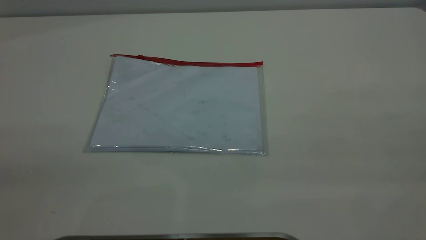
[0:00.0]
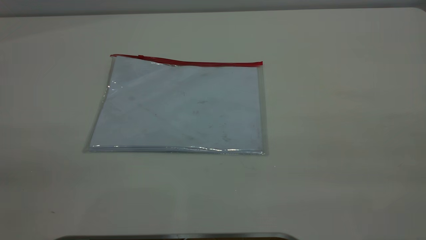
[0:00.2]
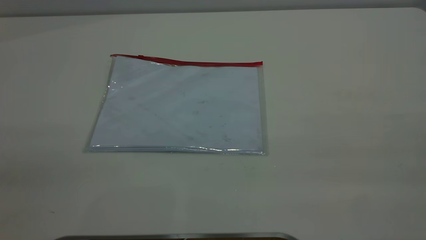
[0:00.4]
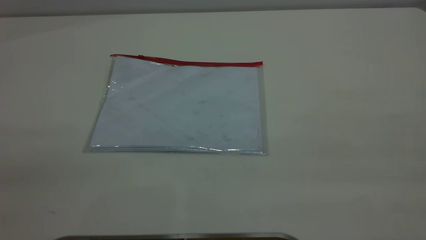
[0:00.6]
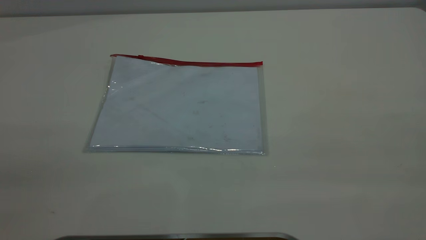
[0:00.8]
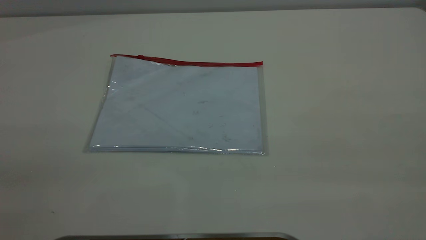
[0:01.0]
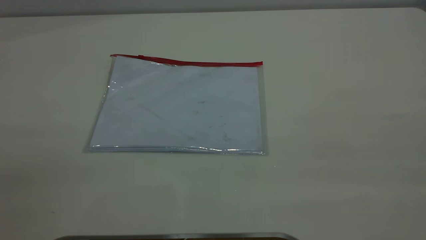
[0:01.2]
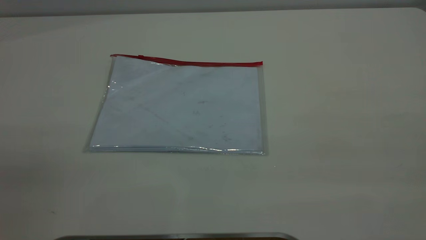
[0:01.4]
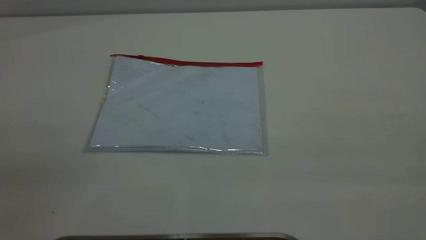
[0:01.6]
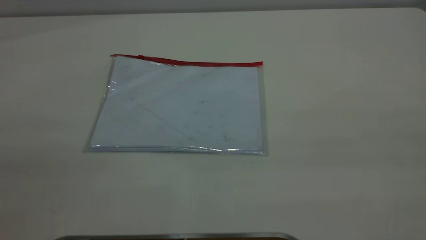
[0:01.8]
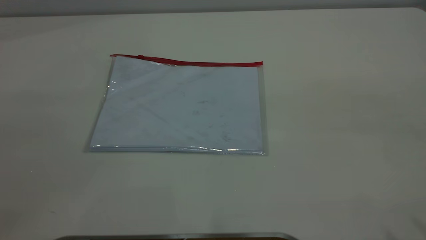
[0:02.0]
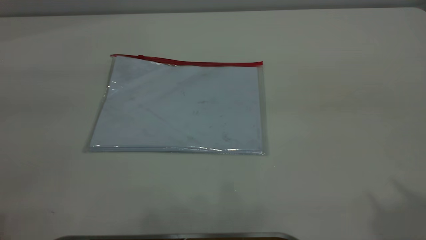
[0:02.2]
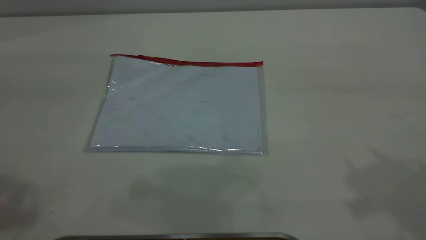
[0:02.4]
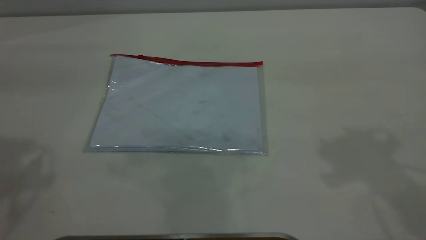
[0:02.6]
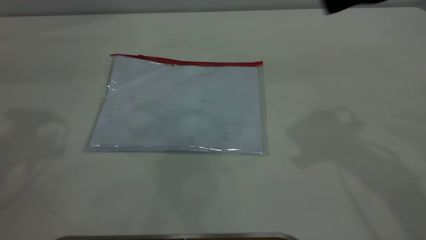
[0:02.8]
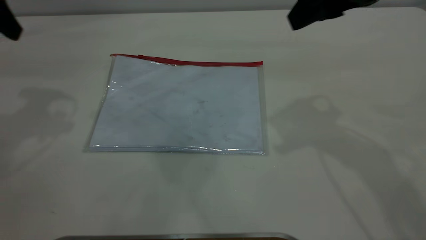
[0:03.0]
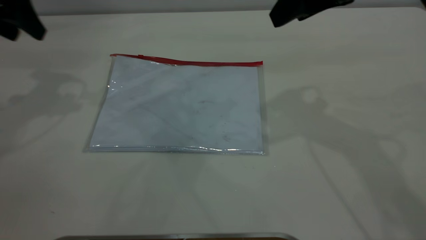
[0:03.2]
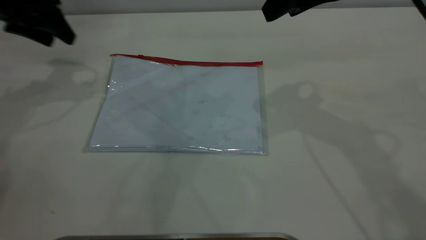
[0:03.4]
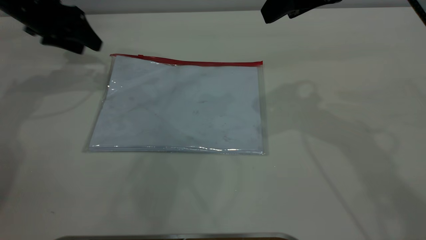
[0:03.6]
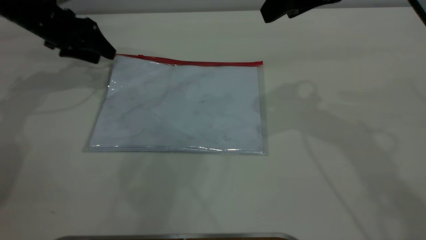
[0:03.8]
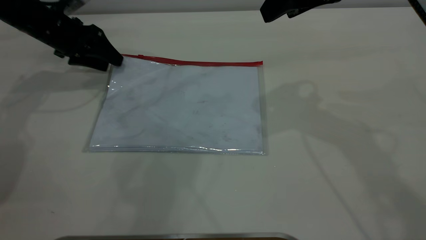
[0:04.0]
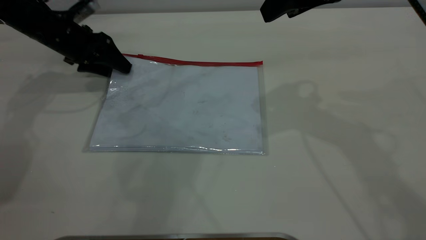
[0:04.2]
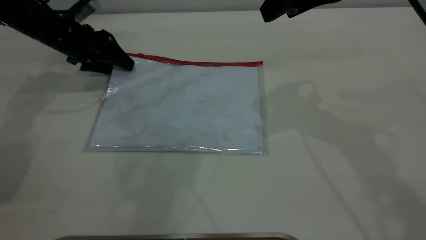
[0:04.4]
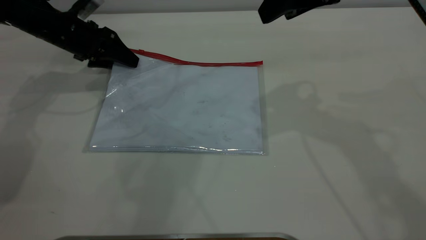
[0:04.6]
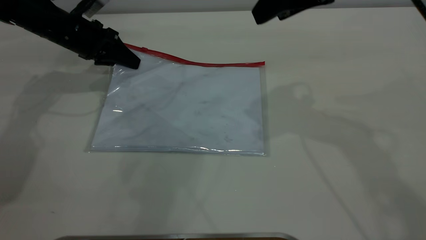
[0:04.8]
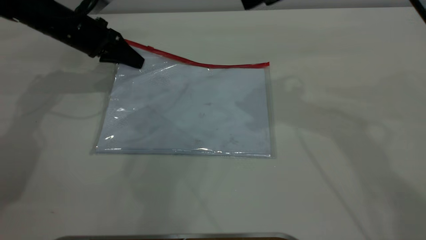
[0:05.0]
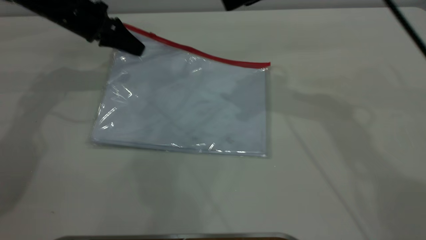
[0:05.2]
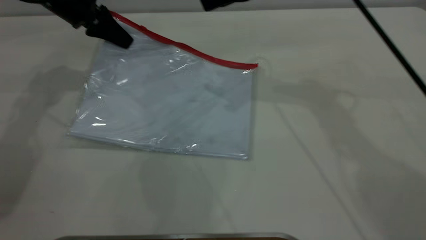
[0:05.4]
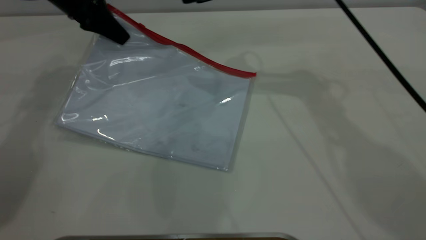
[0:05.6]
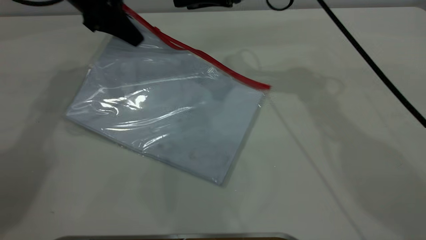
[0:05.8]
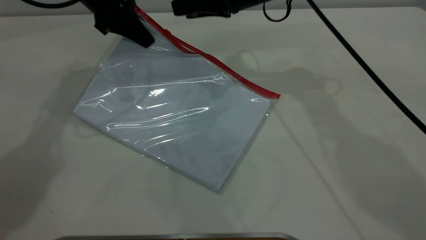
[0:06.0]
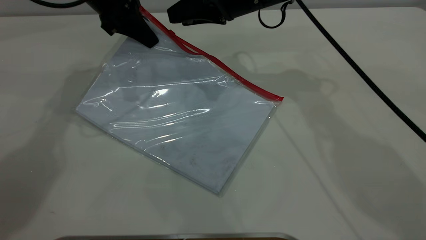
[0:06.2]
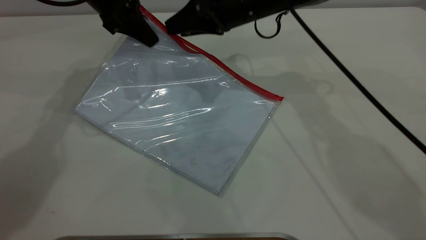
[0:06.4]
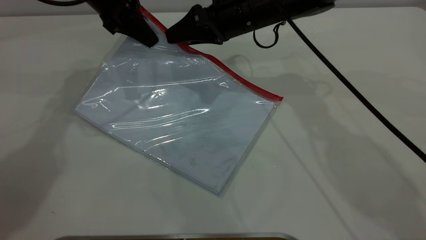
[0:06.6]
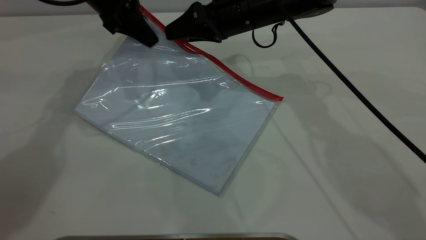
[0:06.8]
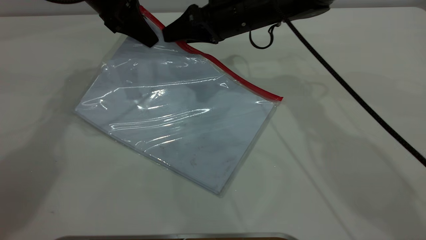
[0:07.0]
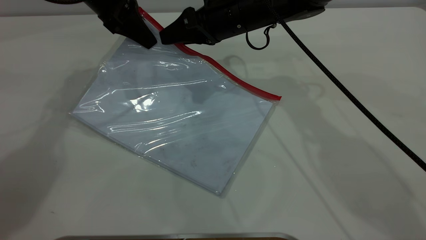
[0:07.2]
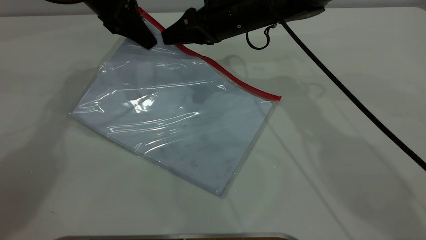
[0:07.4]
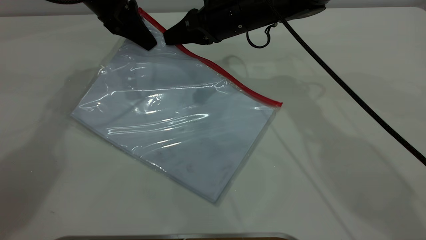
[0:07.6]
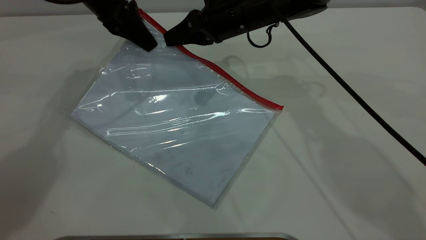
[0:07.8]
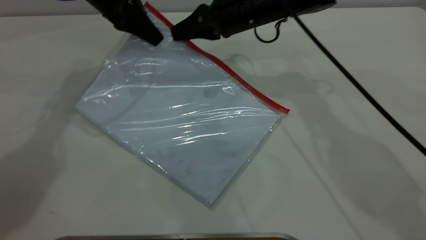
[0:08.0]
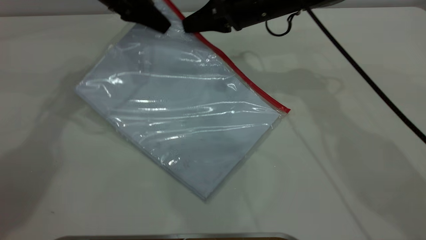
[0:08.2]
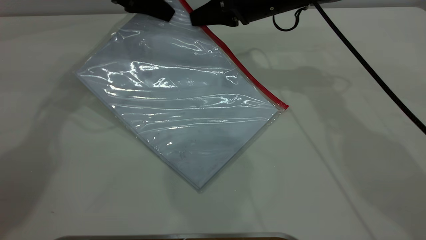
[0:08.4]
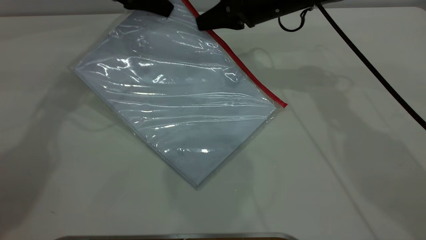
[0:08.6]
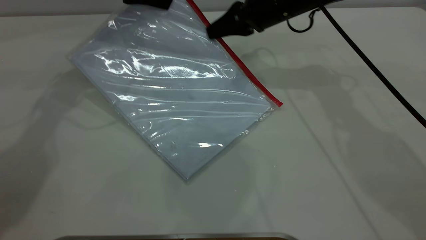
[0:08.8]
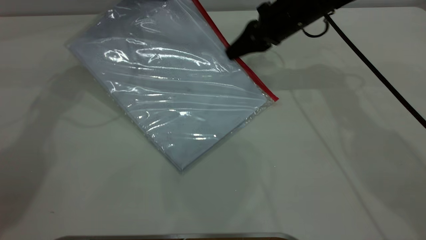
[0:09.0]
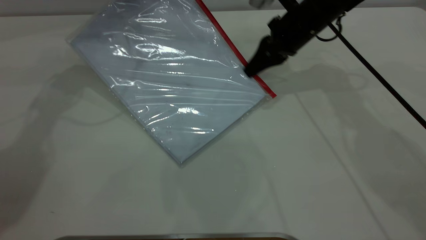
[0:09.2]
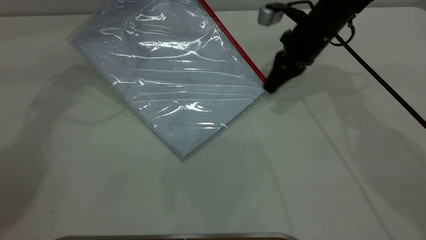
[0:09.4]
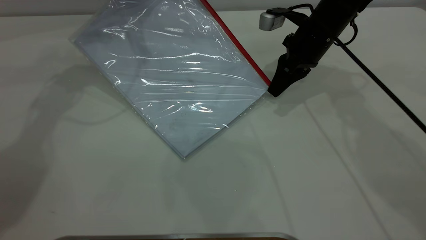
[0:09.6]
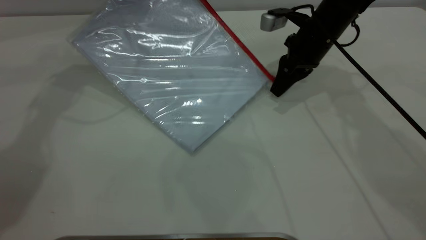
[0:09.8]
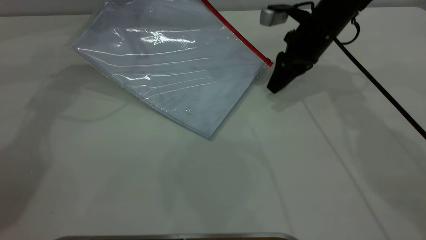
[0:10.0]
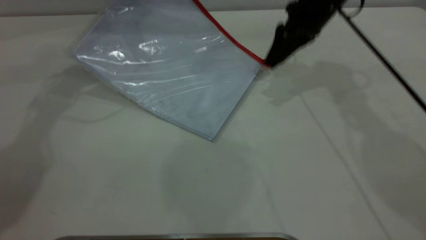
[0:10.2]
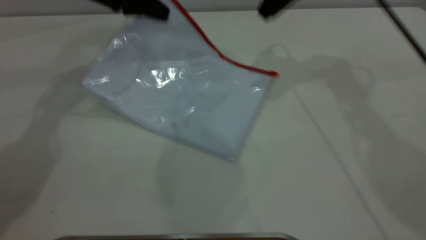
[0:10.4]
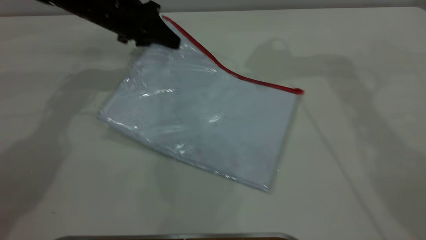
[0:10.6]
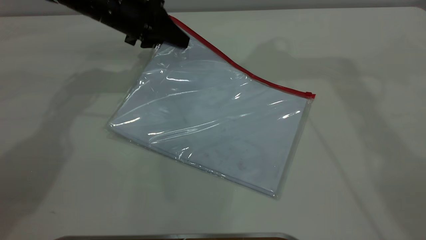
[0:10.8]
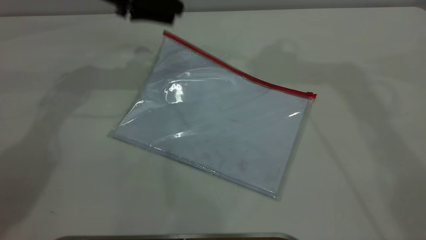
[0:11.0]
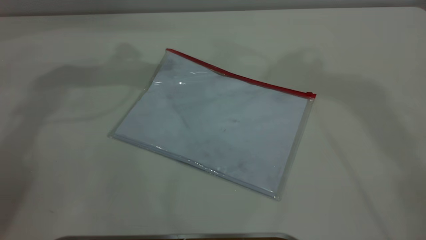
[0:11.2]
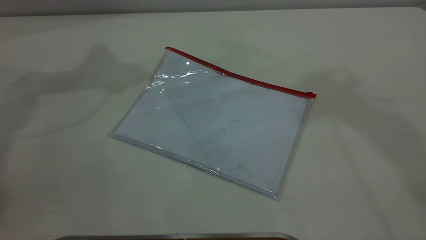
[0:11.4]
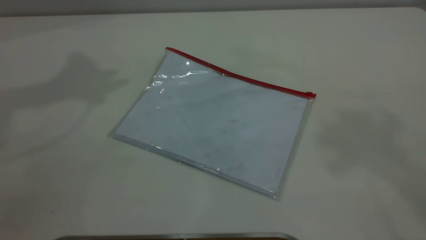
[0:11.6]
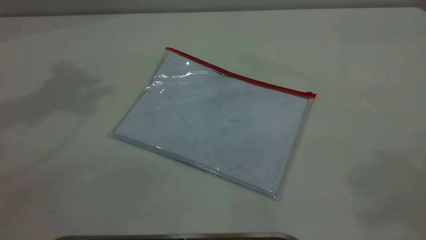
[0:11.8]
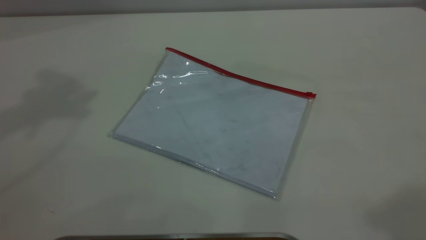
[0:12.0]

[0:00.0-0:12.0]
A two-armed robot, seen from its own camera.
Step, 0:00.0 to 0:05.2: Pick up the transparent plastic bag with the left gripper.
Step, 0:05.4 to 0:09.8: Pulling up the zipper on the transparent plastic bag with the right gripper to close it.
Step, 0:10.0 to 0:11.0: Place the transparent plastic bag.
0:00.0 to 0:01.6: Neither gripper changes place.
0:01.6 to 0:03.0: The right gripper goes roughly 35 cm forward.
0:03.0 to 0:04.4: The left gripper shifts some 20 cm downward and forward.
0:04.4 to 0:06.0: The left gripper shifts approximately 15 cm upward and to the right, and closes its fingers, while the right gripper travels forward, downward and to the left by about 15 cm.
0:06.0 to 0:07.6: The right gripper closes its fingers.
0:07.6 to 0:09.0: The right gripper heads to the right, covering about 10 cm.
0:09.0 to 0:10.4: The left gripper moves downward, about 5 cm. The right gripper shifts roughly 15 cm upward, and opens up.
0:10.4 to 0:12.0: The right gripper is displaced backward and upward by roughly 40 cm, while the left gripper shifts some 35 cm upward, and opens its fingers.

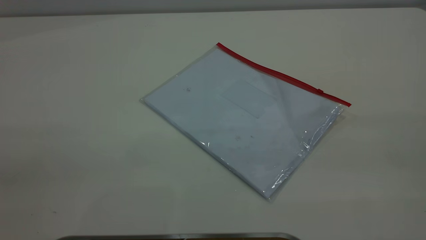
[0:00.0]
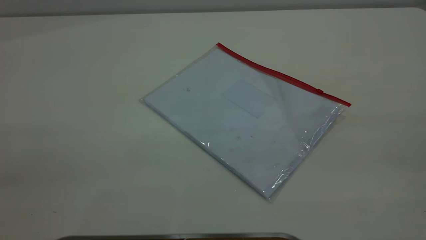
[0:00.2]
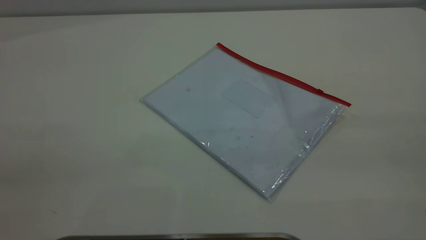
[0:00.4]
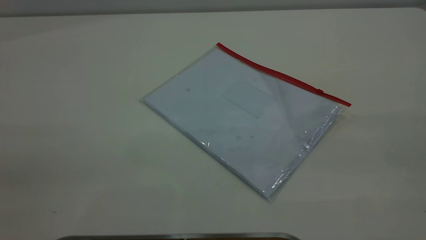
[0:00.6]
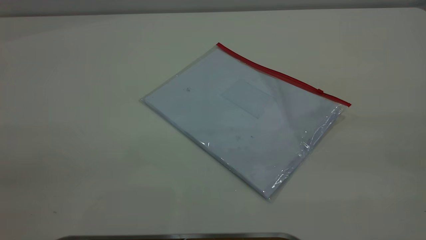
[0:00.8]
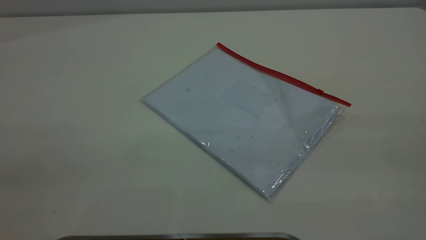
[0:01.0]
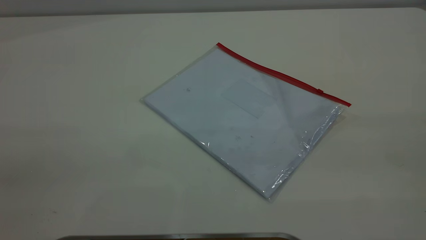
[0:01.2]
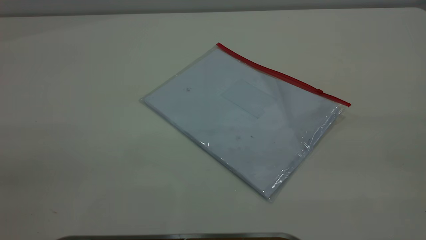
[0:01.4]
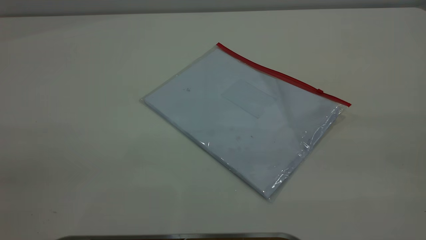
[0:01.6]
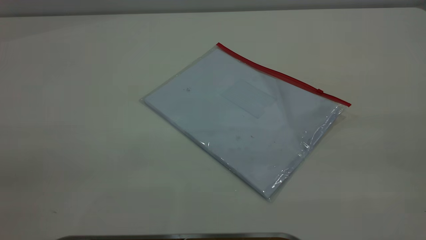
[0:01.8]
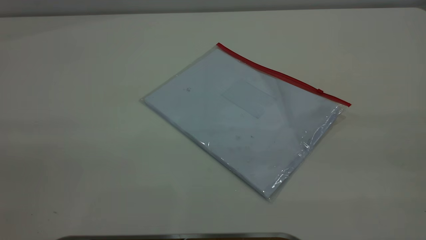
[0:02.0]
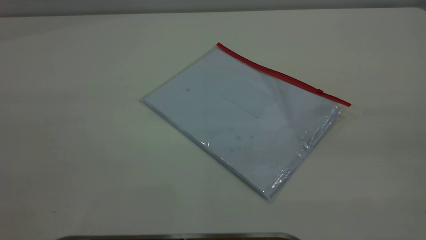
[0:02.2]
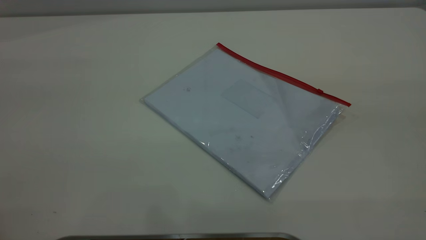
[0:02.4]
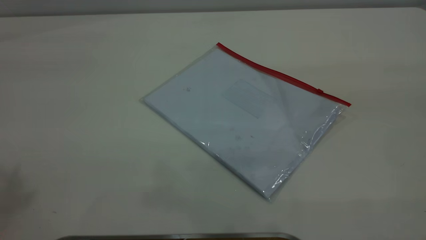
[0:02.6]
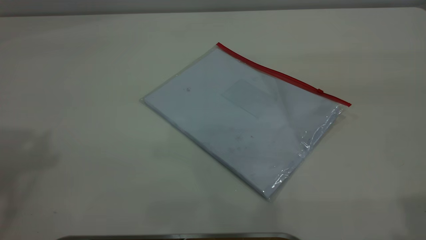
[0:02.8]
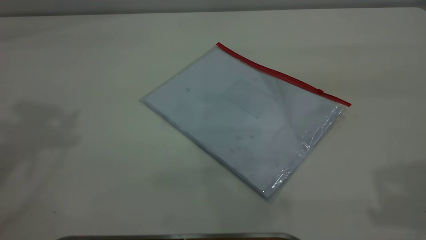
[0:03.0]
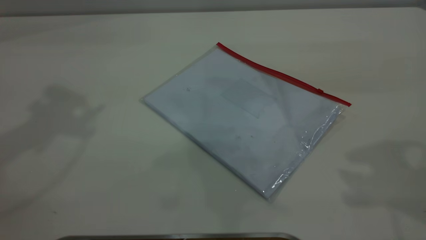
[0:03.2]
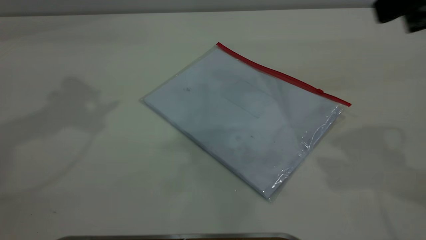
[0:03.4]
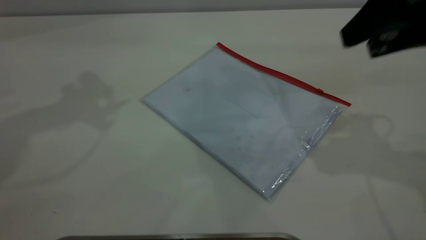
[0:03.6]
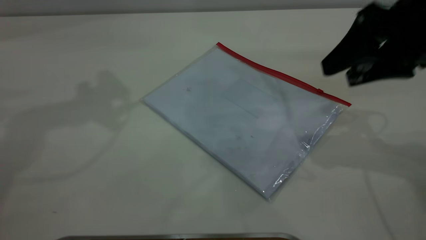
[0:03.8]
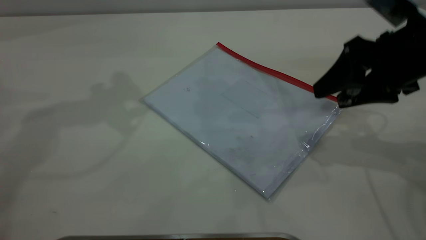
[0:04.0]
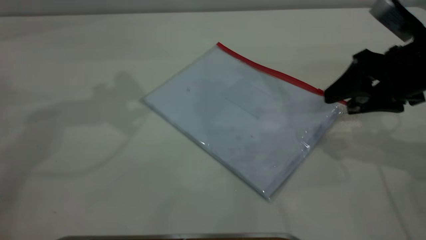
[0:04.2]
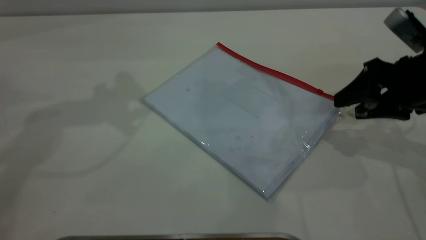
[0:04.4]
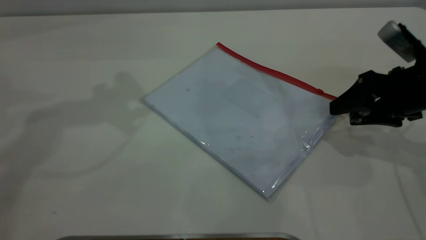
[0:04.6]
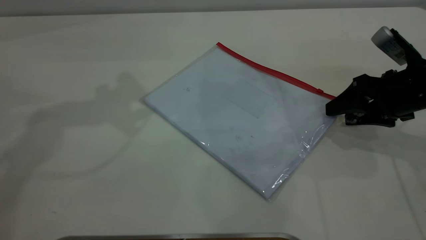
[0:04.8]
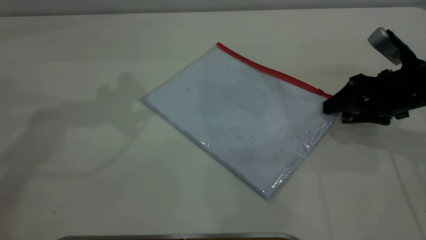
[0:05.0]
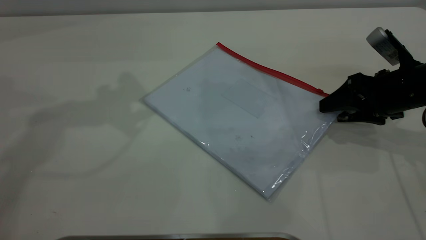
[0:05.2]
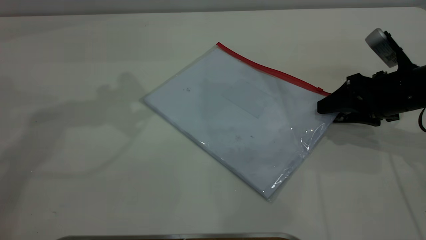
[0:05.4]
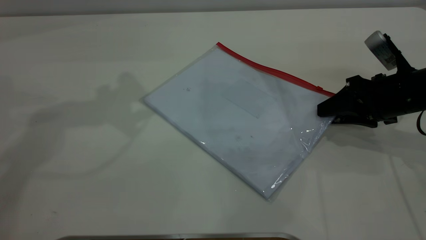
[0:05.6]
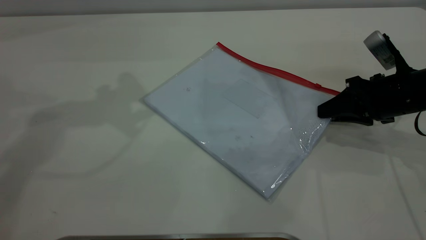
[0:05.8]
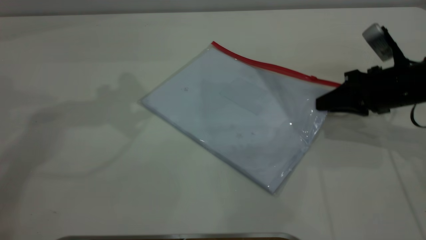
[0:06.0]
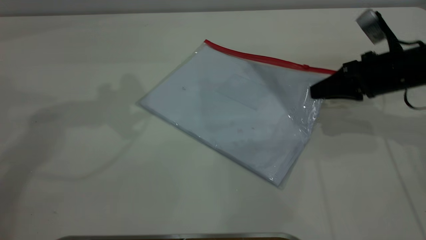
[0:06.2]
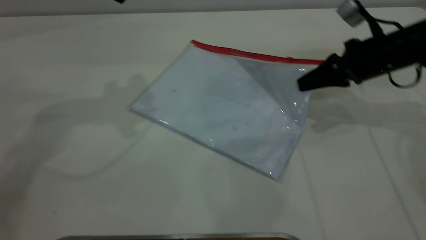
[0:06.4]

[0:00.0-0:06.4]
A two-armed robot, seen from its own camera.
0:00.0 to 0:01.6: The two grippers keep their place.
0:03.2 to 0:04.8: The right gripper travels downward by about 25 cm.
0:04.8 to 0:06.4: The right gripper goes some 5 cm forward, and closes its fingers.
